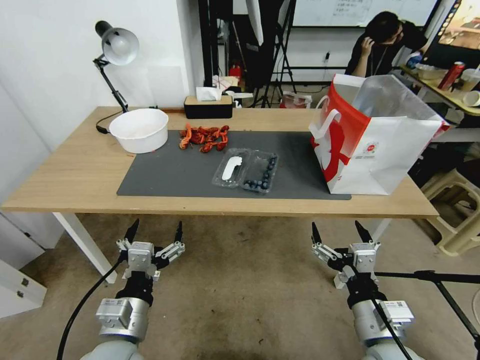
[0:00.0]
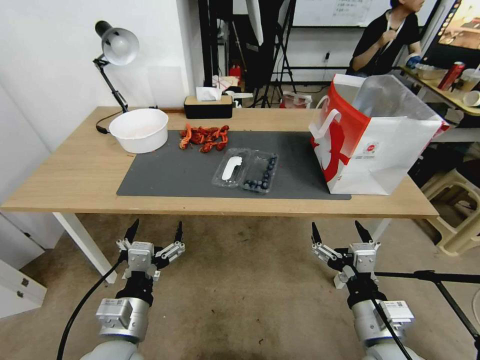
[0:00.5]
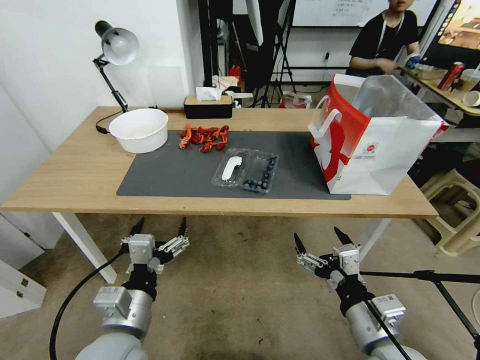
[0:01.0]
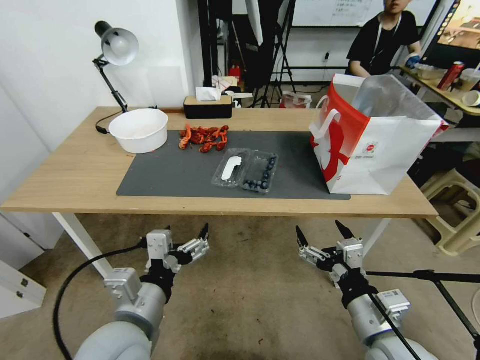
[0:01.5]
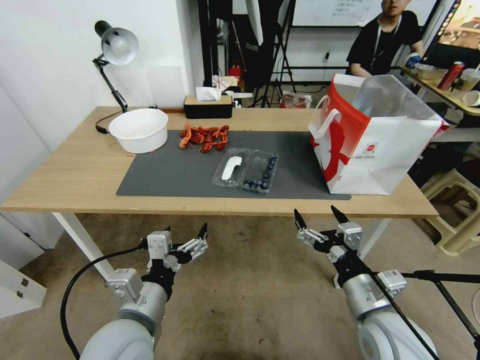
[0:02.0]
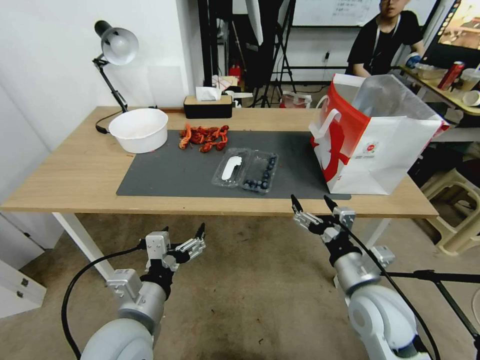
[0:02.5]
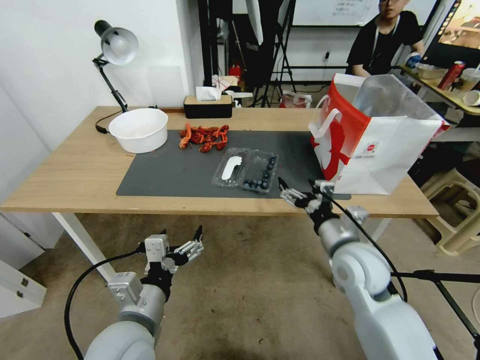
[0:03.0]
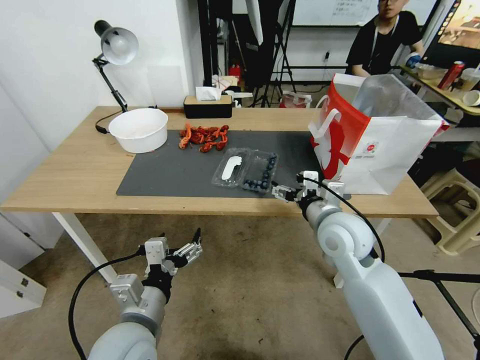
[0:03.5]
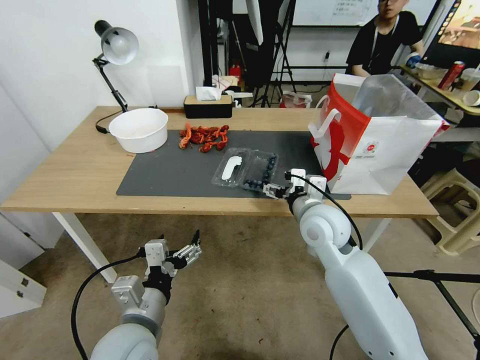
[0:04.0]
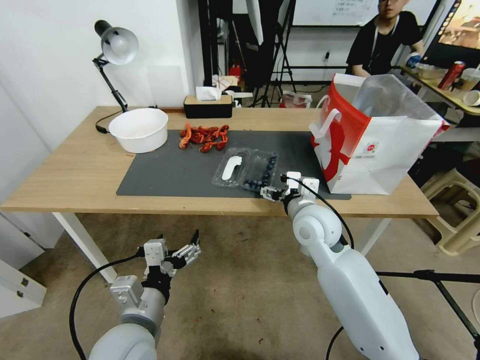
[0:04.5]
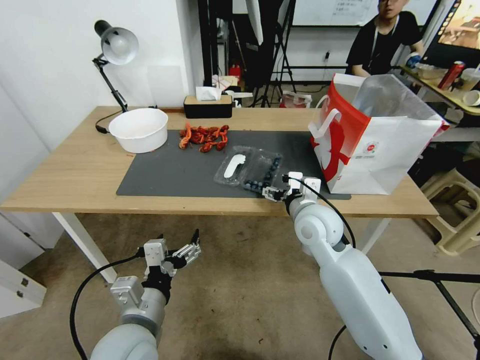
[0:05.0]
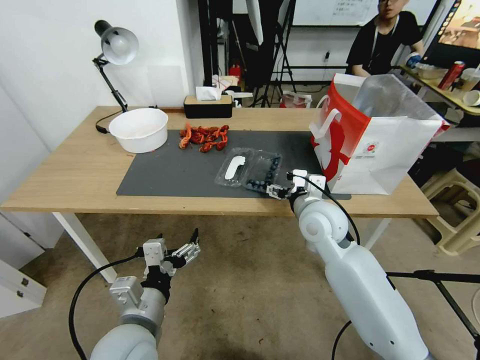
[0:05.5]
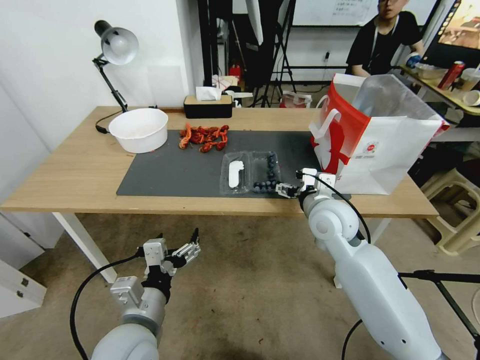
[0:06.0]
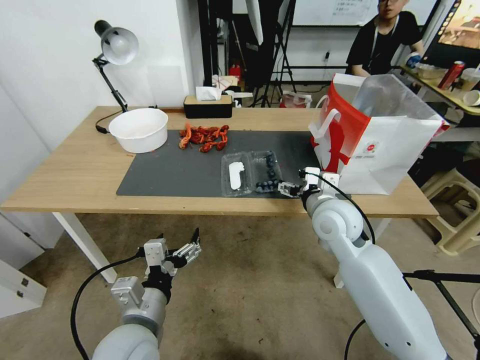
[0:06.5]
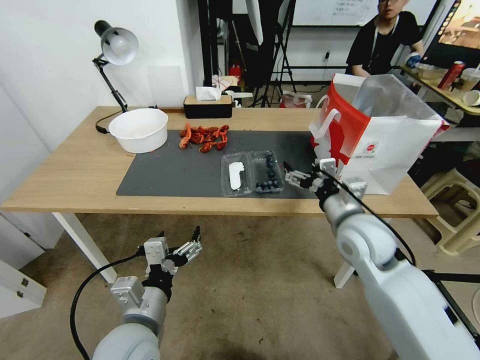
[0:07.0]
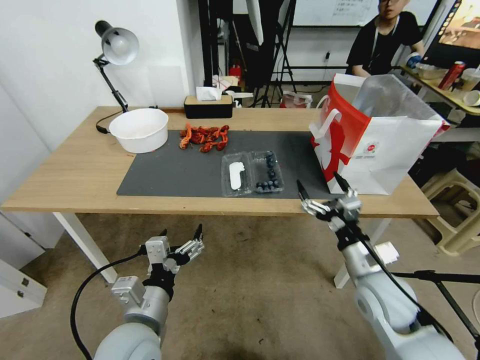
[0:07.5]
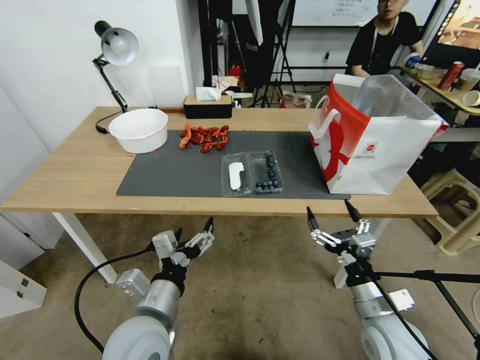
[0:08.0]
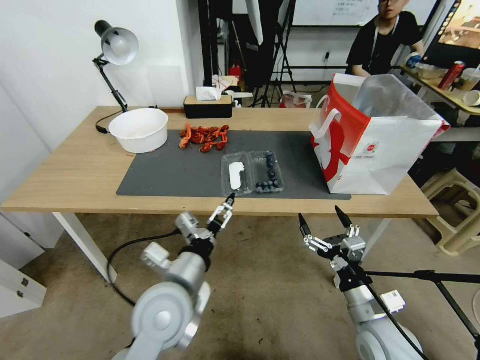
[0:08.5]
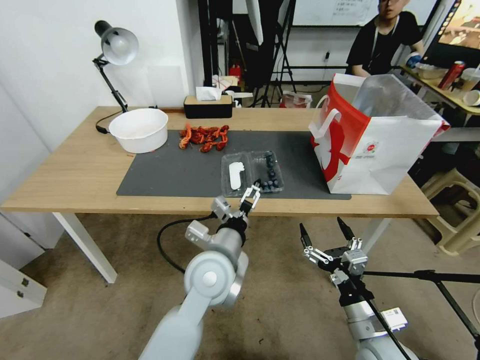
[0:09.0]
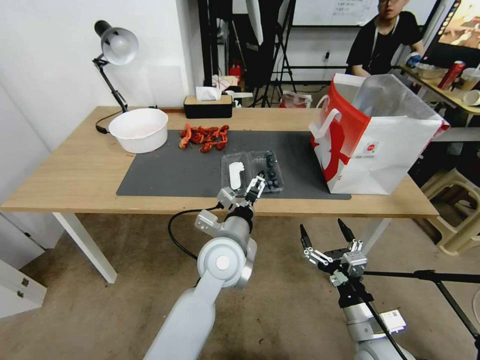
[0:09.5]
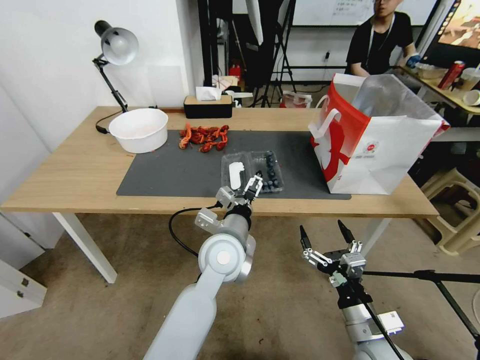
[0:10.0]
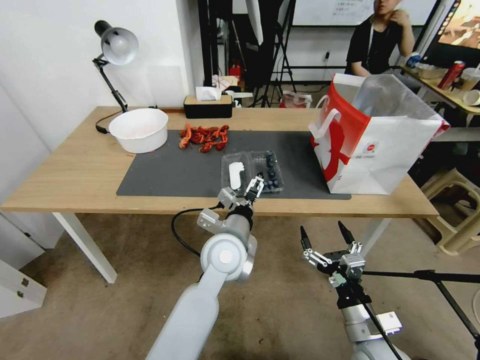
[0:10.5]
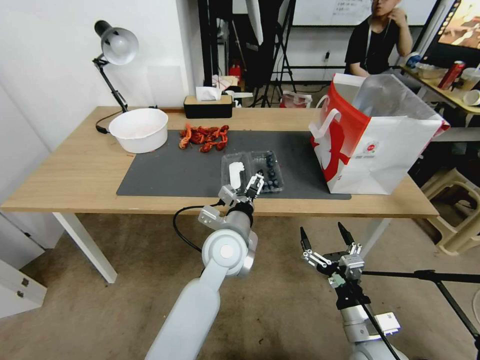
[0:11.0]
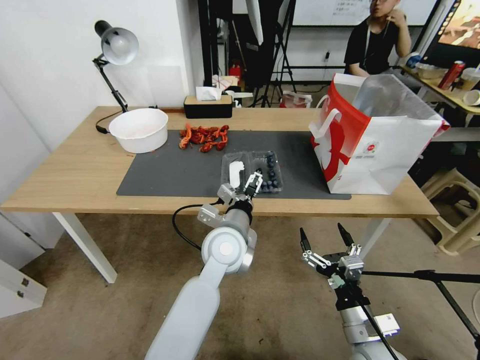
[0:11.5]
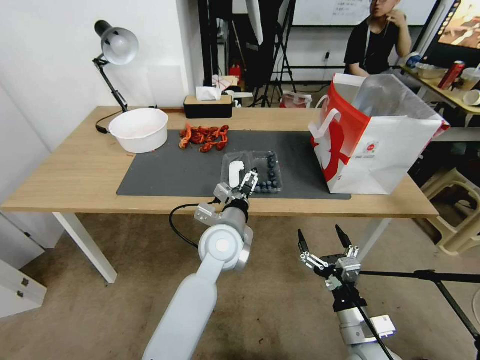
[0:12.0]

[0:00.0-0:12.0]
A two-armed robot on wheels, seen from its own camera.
Task of the whole recording: Close the takeout container lid, then place the container into the takeout bag.
0:02.0 to 0:04.0: The right gripper shifts some 20 cm forward and to the left.
0:04.0 to 0:06.0: The grippers make only small movements.
0:06.0 to 0:08.0: The right gripper shifts approximately 25 cm backward, downward and to the right.
0:08.0 to 0:10.0: The left gripper heads forward and to the right, covering approximately 20 cm.
0:10.0 to 0:12.0: The grippers make only small movements.

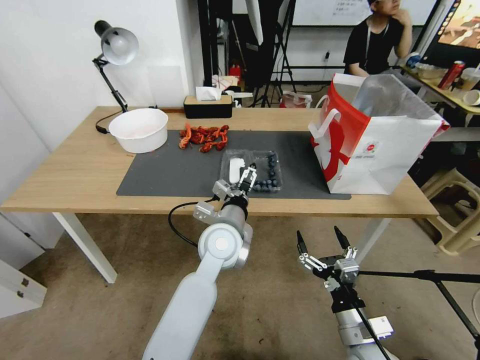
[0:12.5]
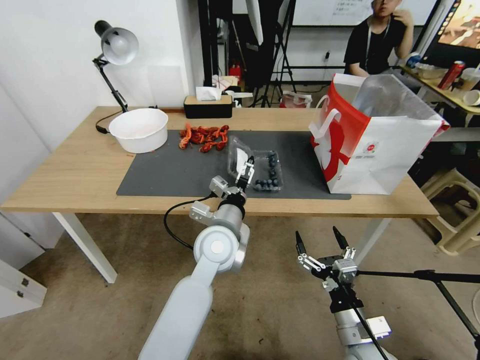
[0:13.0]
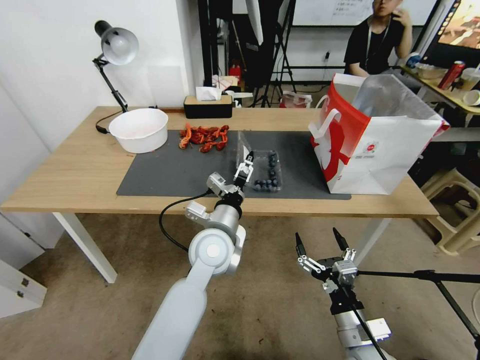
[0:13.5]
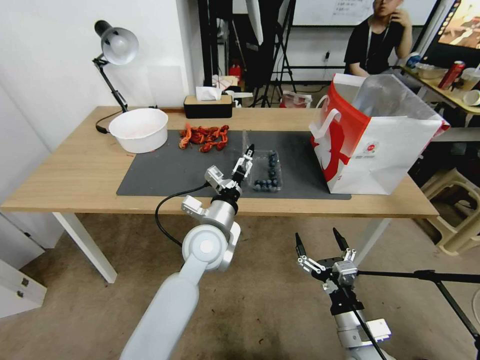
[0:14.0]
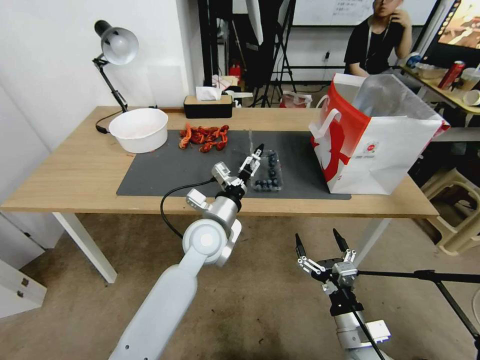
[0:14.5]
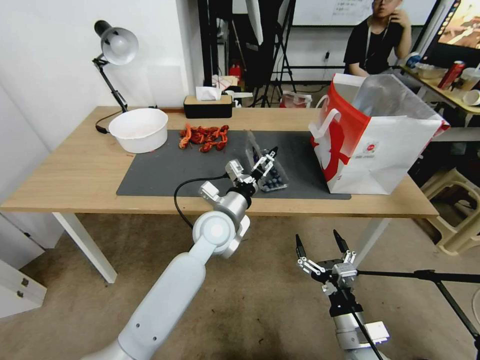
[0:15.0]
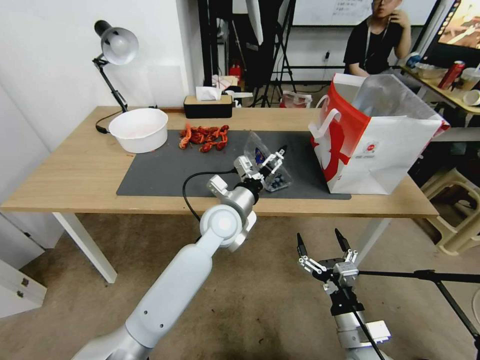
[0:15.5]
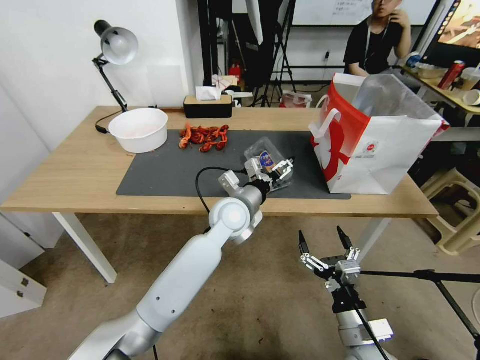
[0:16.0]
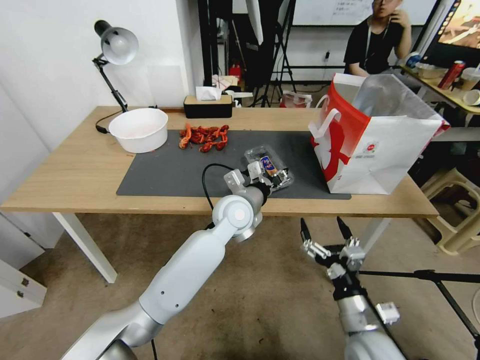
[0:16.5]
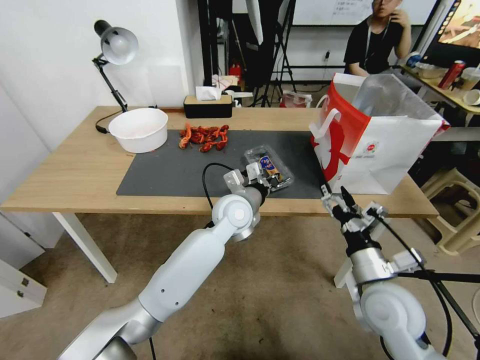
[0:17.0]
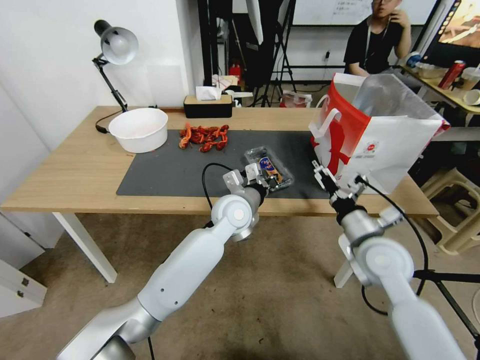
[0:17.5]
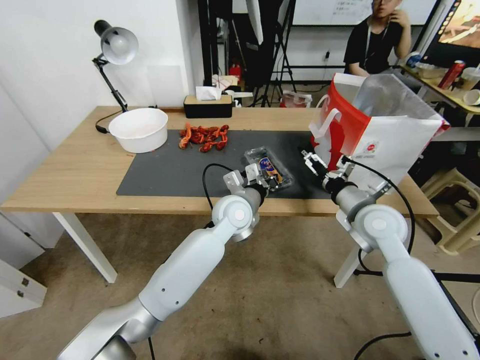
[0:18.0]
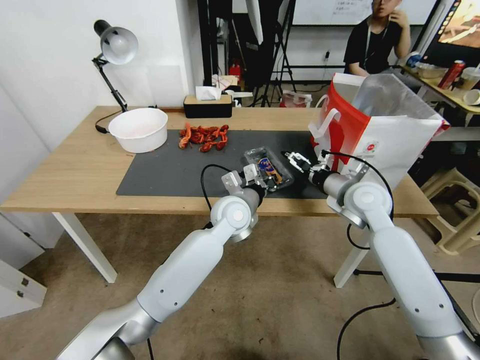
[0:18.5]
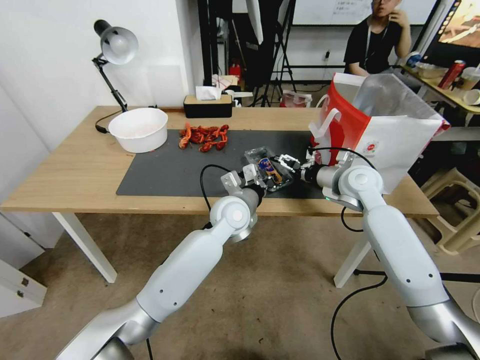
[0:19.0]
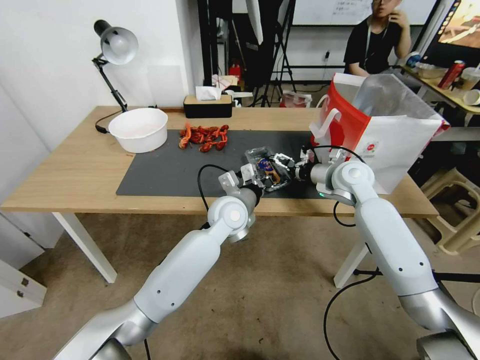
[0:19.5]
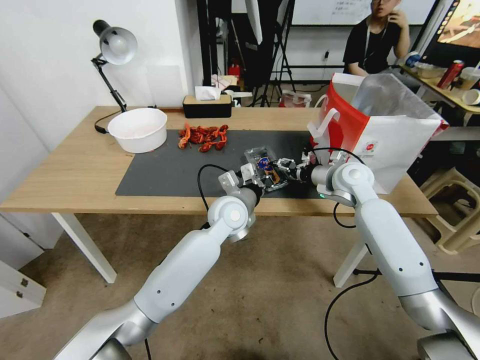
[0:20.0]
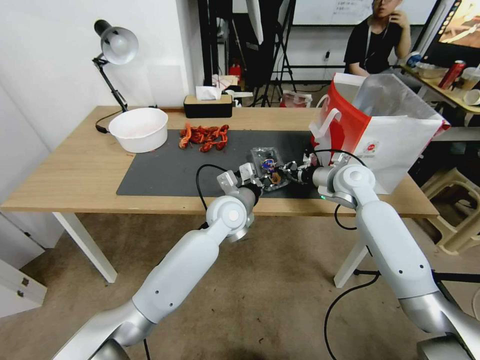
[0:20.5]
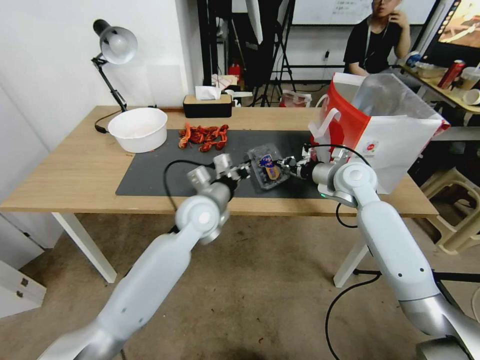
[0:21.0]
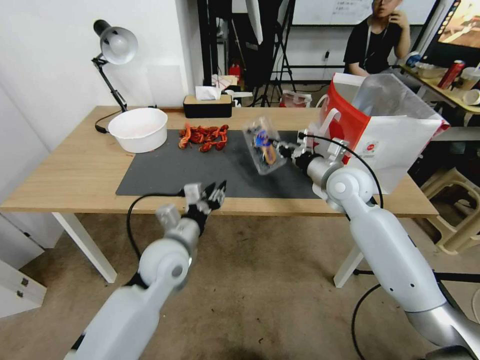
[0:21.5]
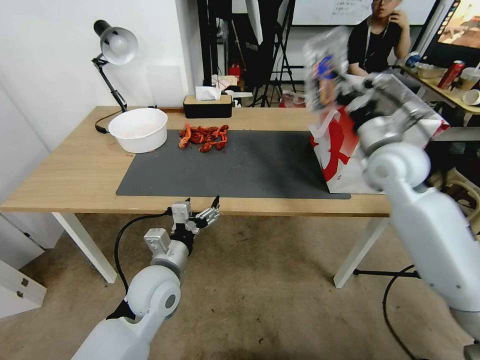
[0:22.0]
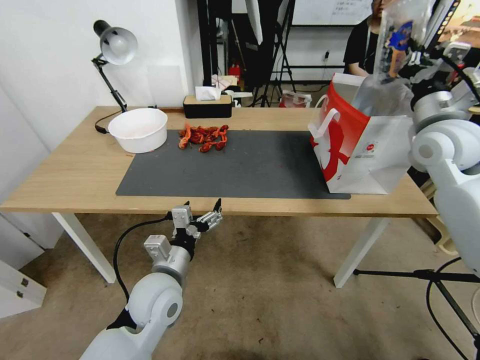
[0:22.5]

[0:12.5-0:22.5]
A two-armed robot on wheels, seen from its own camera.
Task of the whole recording: Close the takeout container lid, then place the container into the takeout bag.
0:14.5 to 0:16.5: The left gripper travels forward and to the right by some 10 cm, and closes its fingers.
0:16.5 to 0:18.5: The left gripper closes up, while the right gripper shifts some 30 cm forward and upward.
0:18.5 to 0:20.5: The right gripper is displaced forward by roughly 5 cm, and closes up.
0:20.5 to 0:22.5: The right gripper shifts some 20 cm upward and to the right, while the left gripper shifts approximately 20 cm backward and to the left, and opens.

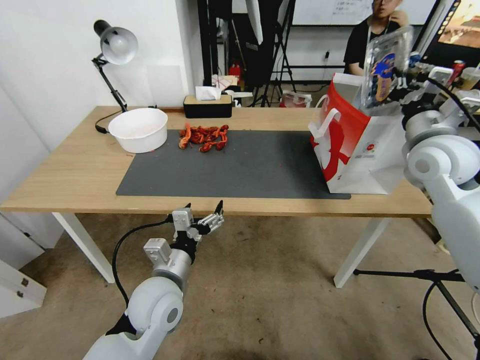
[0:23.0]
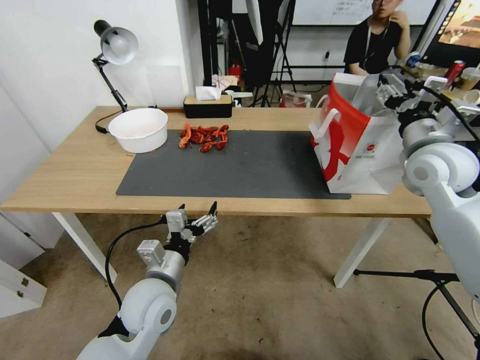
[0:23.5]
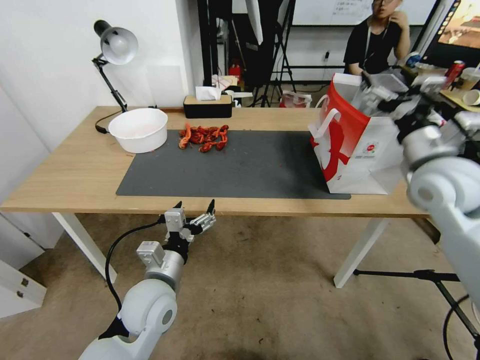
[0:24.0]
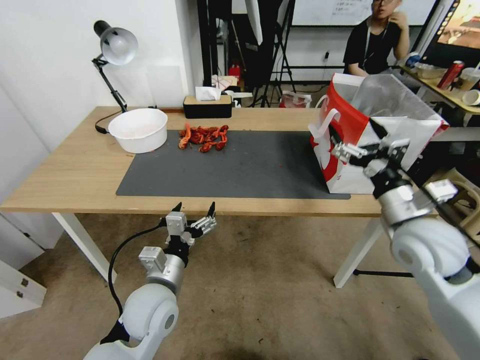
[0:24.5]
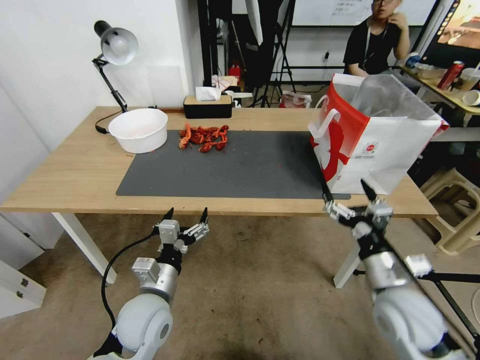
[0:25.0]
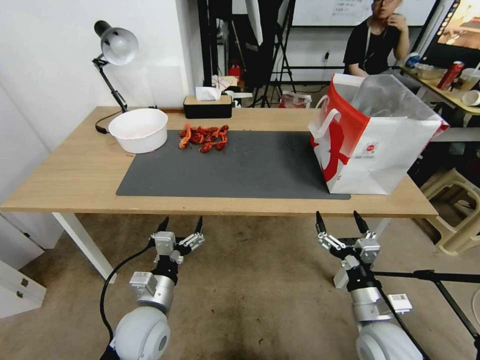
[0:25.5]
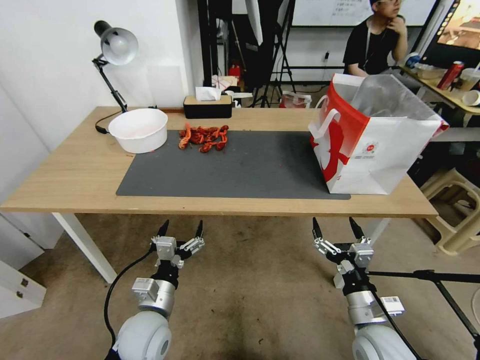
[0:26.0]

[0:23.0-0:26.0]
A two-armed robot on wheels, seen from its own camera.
Task of the whole recording: Close the takeout container lid, then place the container into the takeout bag.
0:23.0 to 0:24.5: The right gripper is displaced backward and downward by roughly 15 cm, and opens.
0:24.5 to 0:26.0: The right gripper goes roughly 20 cm downward and backward. The left gripper is displaced downward by roughly 5 cm.
